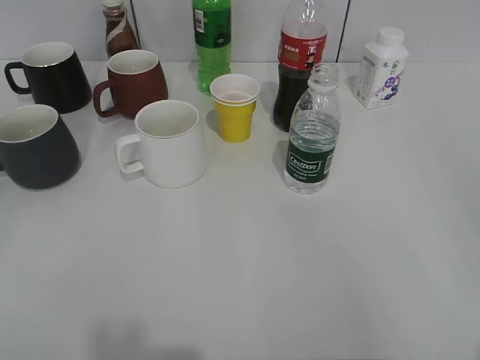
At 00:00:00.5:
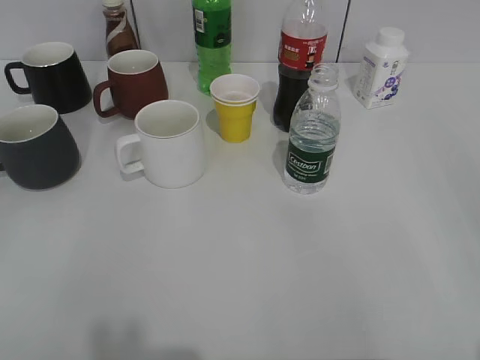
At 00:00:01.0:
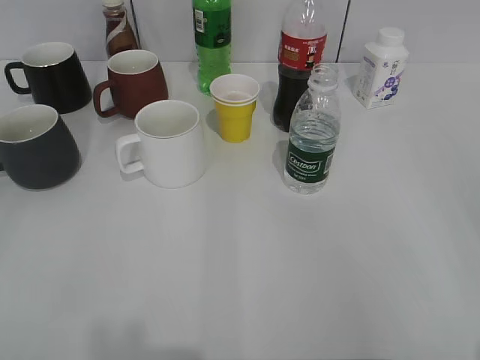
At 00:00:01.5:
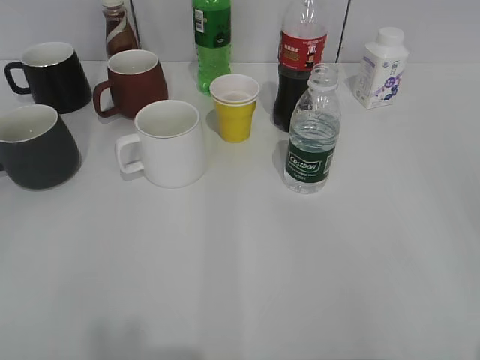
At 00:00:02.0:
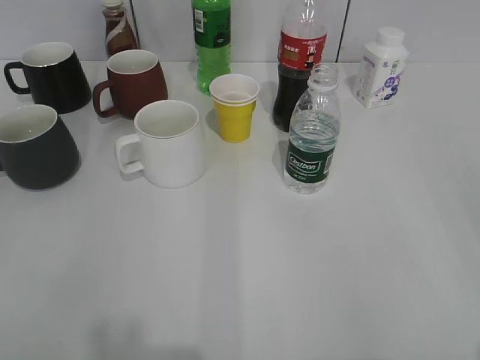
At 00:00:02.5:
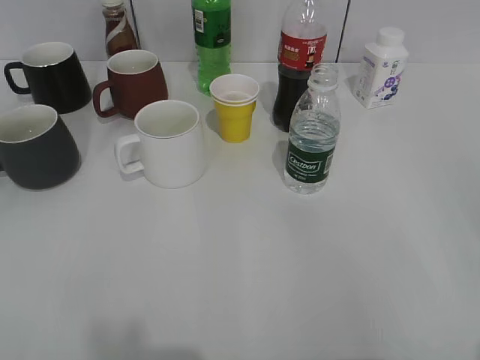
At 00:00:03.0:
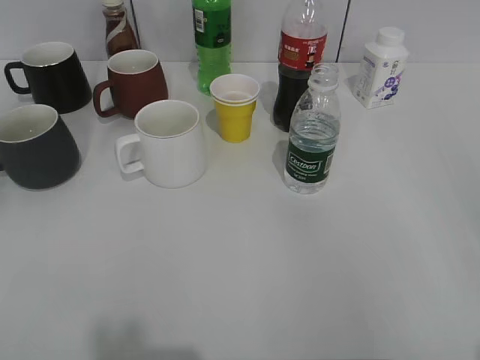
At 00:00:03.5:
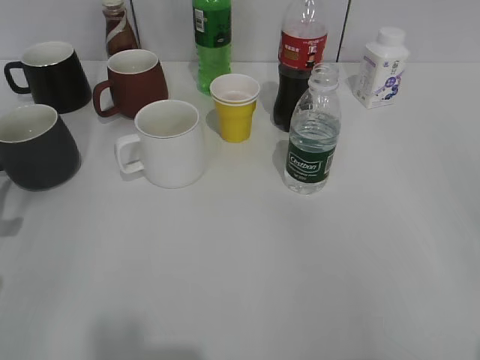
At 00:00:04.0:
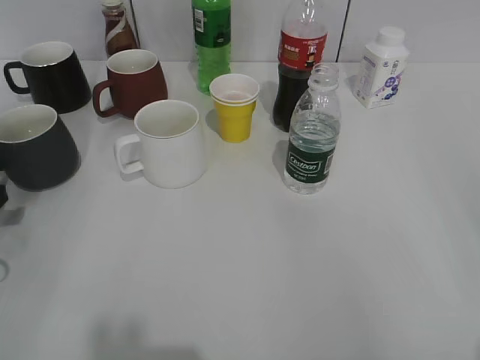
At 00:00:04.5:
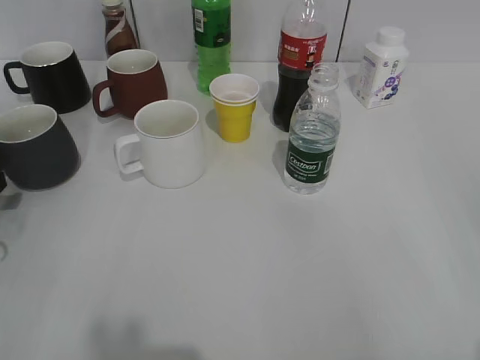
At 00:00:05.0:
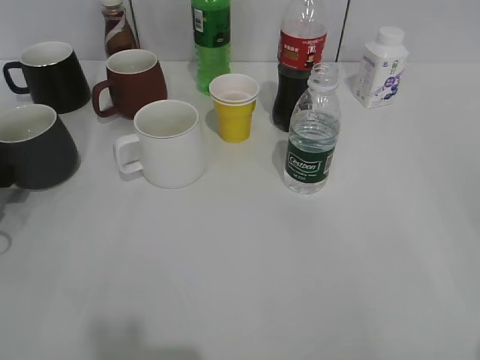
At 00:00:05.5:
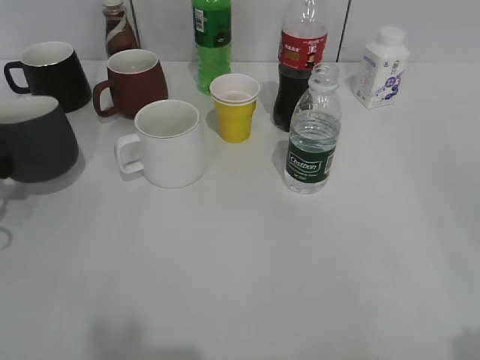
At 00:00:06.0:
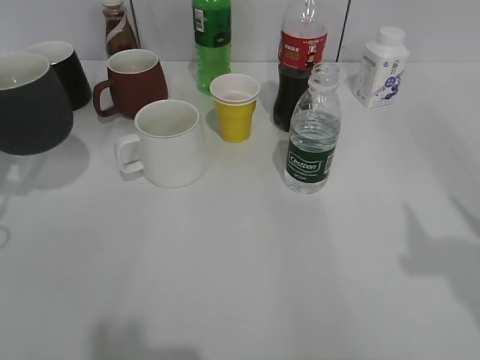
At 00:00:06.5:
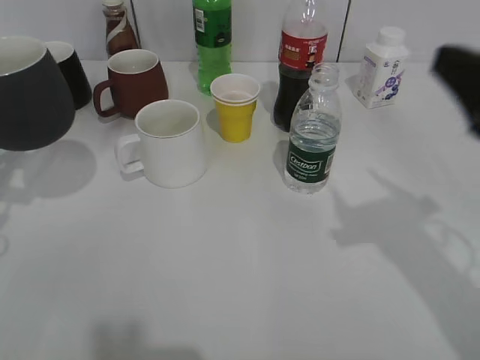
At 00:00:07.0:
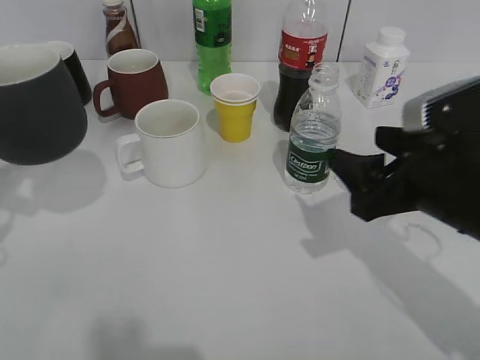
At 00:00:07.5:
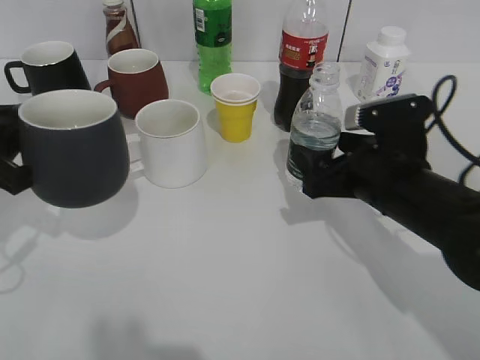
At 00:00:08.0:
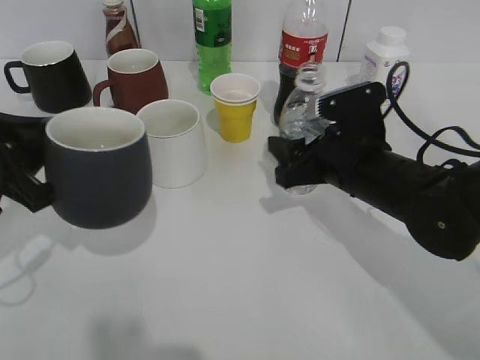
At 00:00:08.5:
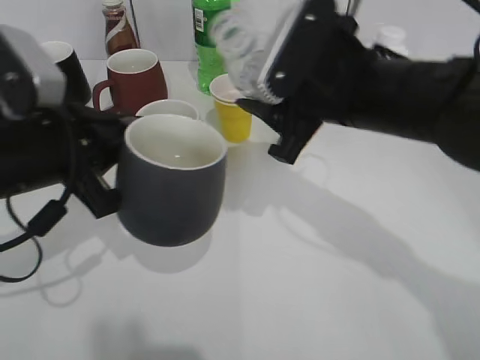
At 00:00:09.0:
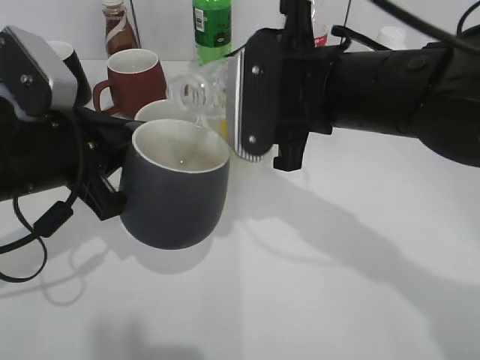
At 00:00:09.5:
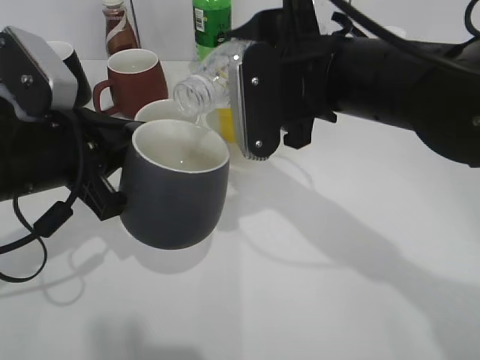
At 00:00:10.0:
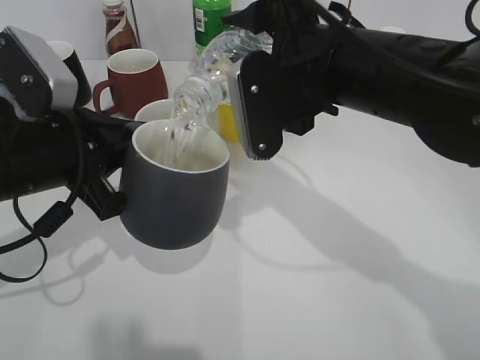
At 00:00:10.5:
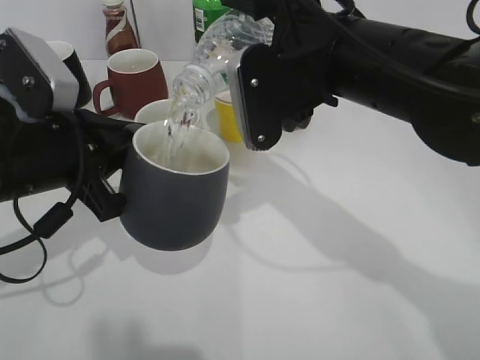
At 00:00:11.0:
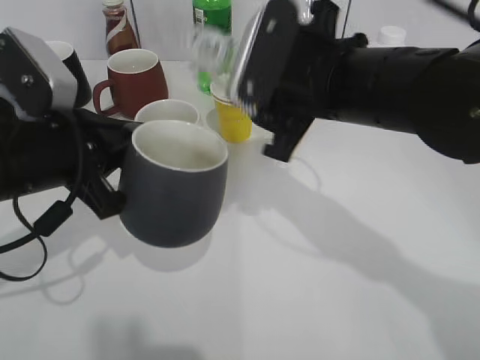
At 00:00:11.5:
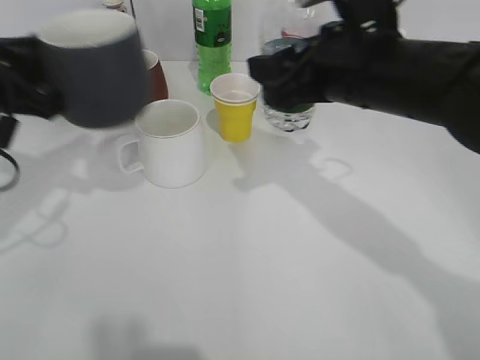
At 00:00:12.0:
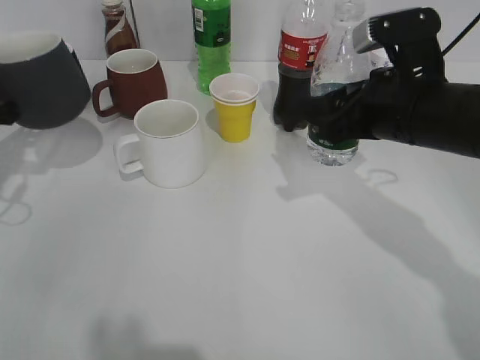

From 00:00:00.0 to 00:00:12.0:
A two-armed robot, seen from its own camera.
Step, from 00:00:05.5 to 00:00:06.0: Lift the black cup with left gripper.
Step, from 00:00:06.5 to 00:00:07.5: Grasp the bottle with water with right gripper.
Step, from 00:00:08.0 to 00:00:11.0: Pour the water from bottle to cup with right gripper.
From 00:00:02.0 to 00:00:04.0: The left gripper shifts about 30 cm forward and downward.
From 00:00:04.0 to 00:00:06.0: The left gripper heads upward, covering about 5 cm, and closes.
From 00:00:06.0 to 00:00:08.0: The right gripper shifts approximately 30 cm forward, downward and to the left, and closes its fingers; the left gripper moves to the right, some 10 cm.
From 00:00:08.0 to 00:00:10.0: The right gripper moves upward and to the left, approximately 15 cm. The left gripper goes about 5 cm to the right.
From 00:00:10.0 to 00:00:12.0: The left gripper is displaced to the left and forward by some 15 cm. Meanwhile the right gripper travels to the right and downward by roughly 10 cm.

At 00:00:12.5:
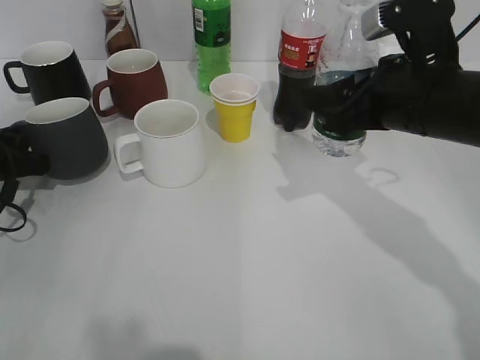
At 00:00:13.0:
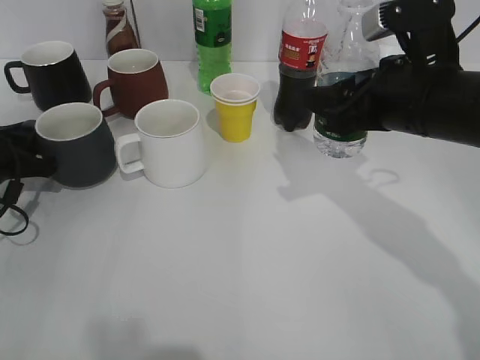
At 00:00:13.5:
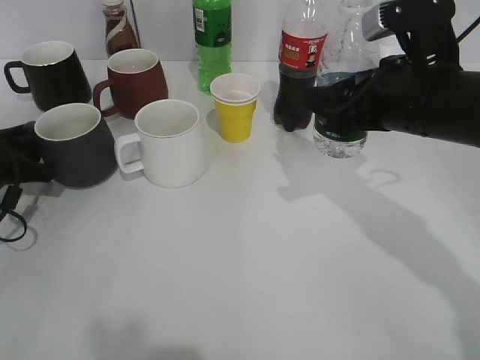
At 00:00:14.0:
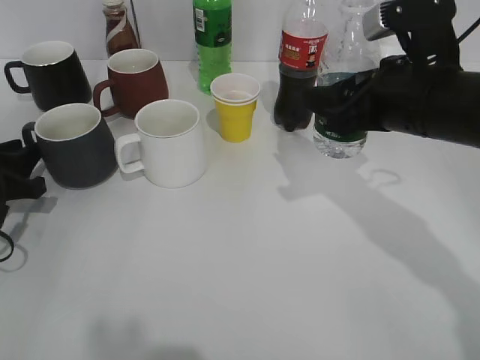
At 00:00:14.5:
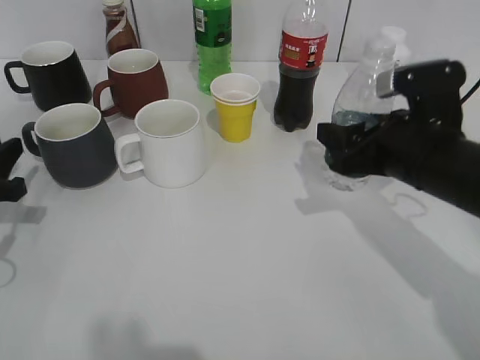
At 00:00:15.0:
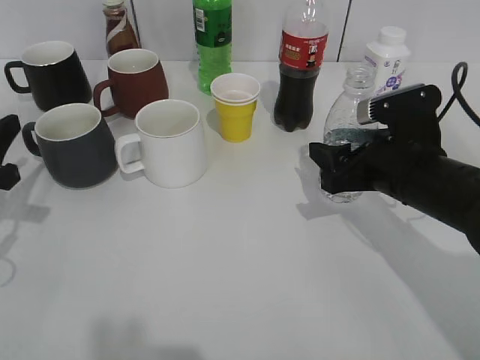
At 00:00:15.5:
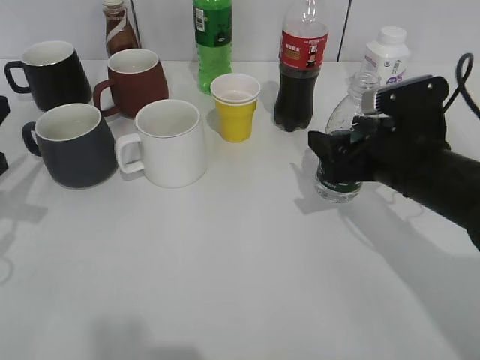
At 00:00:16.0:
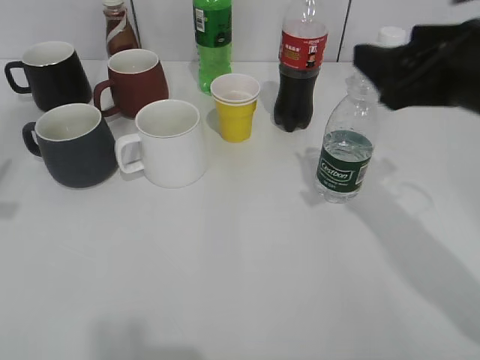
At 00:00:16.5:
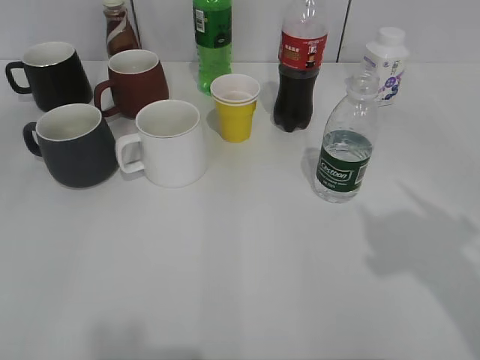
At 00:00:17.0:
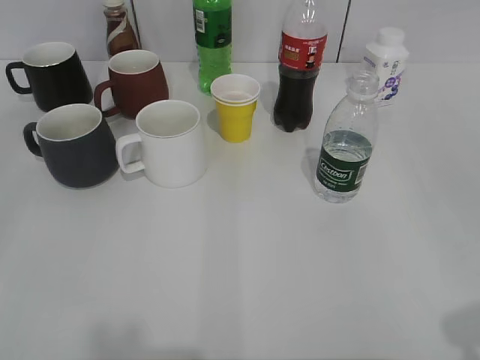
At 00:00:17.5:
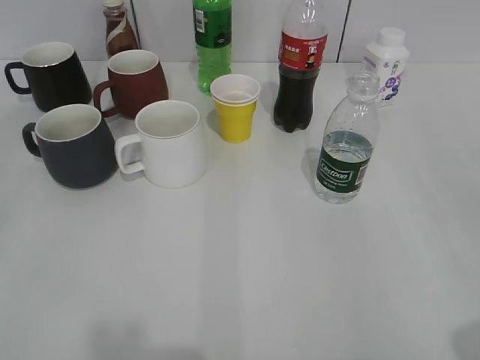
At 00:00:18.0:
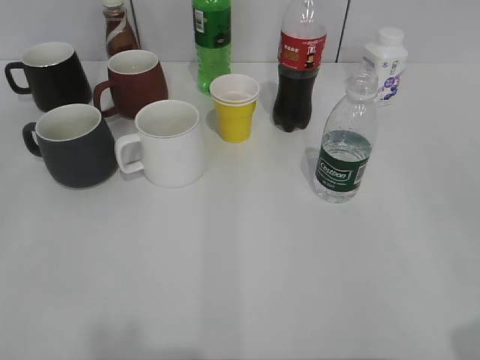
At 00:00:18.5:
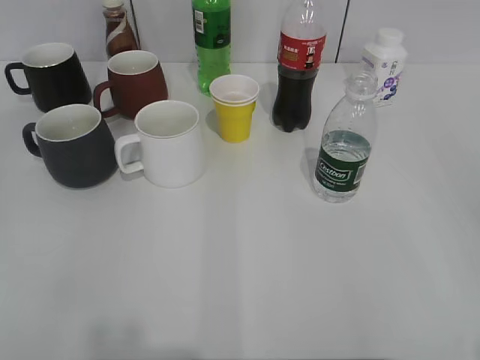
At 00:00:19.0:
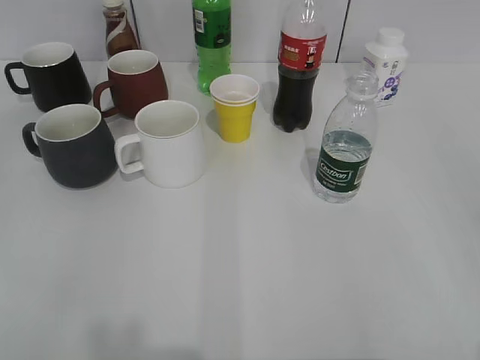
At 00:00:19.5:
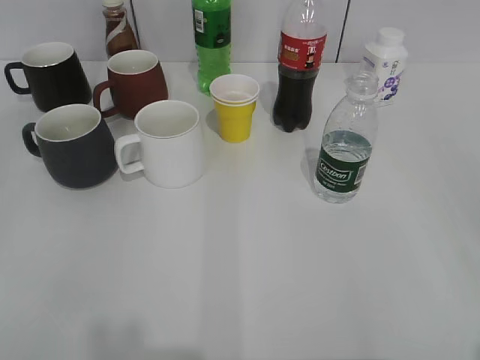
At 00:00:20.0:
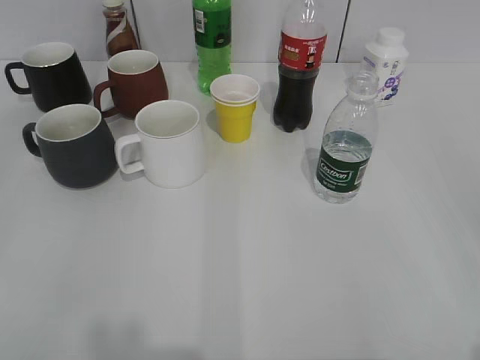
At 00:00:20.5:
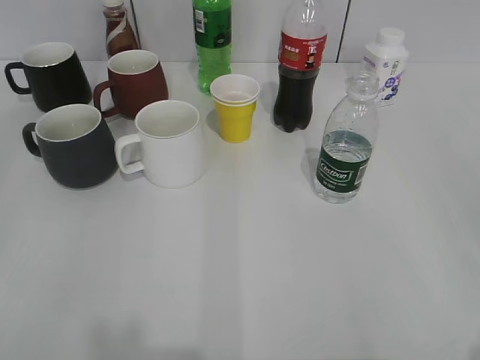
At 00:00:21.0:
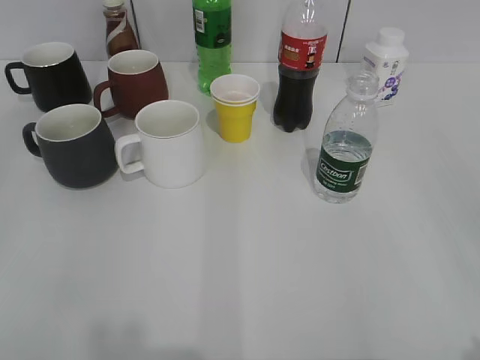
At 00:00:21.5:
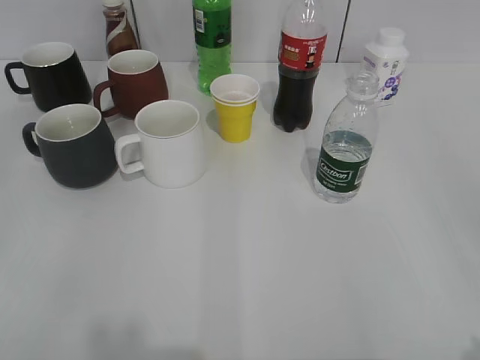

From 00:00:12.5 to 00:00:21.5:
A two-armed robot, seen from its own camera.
Step, from 00:00:12.5 to 00:00:14.0: Place the black cup on the table with left gripper.
Step, from 00:00:14.5 to 00:00:15.5: Place the water bottle on the table with right gripper.
From 00:00:12.5 to 00:00:14.5: The right gripper changes place by roughly 5 cm; the left gripper shifts roughly 5 cm backward, and opens its fingers.
From 00:00:14.5 to 00:00:17.0: The left gripper goes about 30 cm backward and upward, and opens its fingers. Meanwhile the right gripper travels backward, upward and to the right by roughly 30 cm, and opens its fingers.
From 00:00:17.0 to 00:00:19.5: The left gripper closes up.
